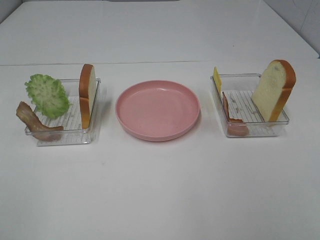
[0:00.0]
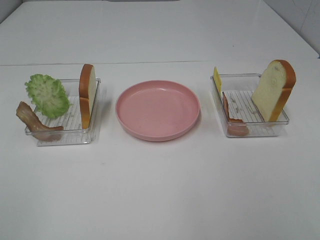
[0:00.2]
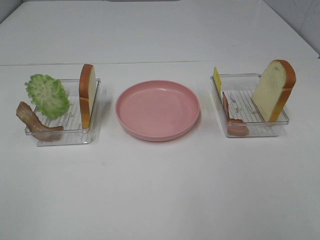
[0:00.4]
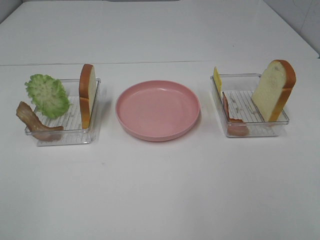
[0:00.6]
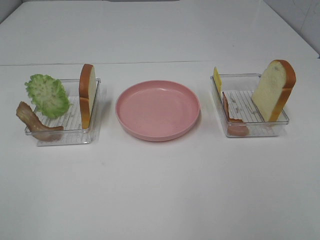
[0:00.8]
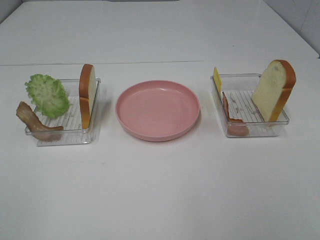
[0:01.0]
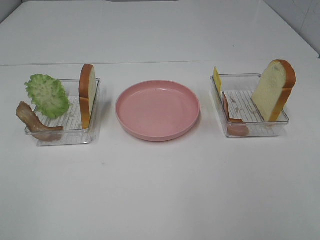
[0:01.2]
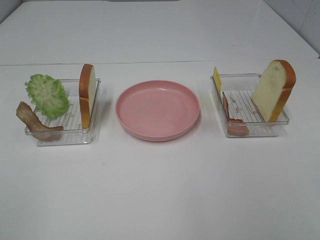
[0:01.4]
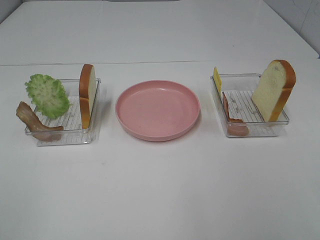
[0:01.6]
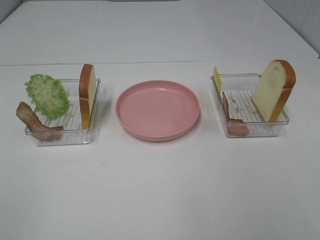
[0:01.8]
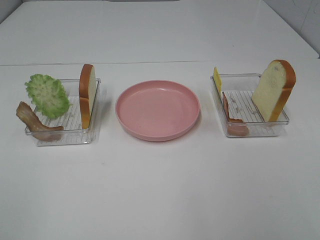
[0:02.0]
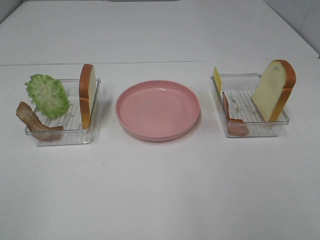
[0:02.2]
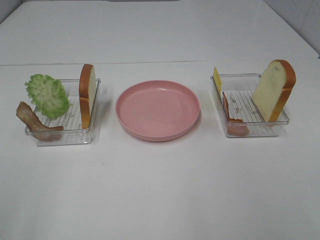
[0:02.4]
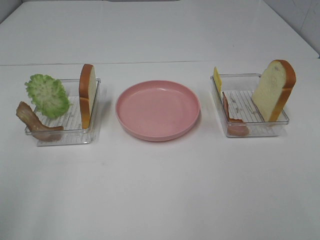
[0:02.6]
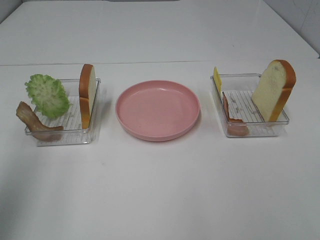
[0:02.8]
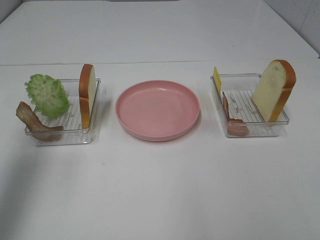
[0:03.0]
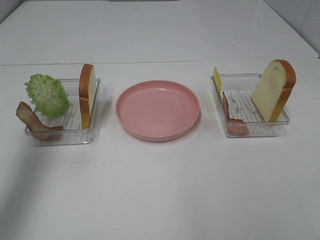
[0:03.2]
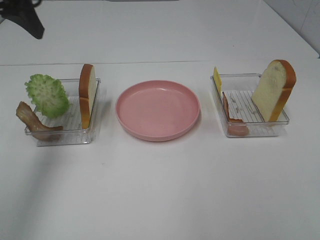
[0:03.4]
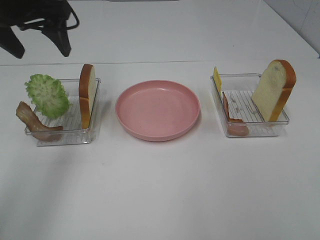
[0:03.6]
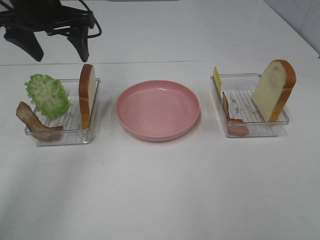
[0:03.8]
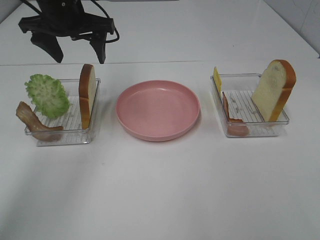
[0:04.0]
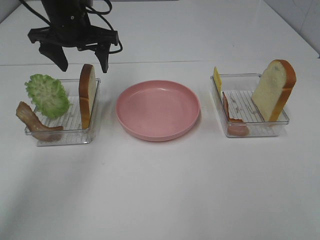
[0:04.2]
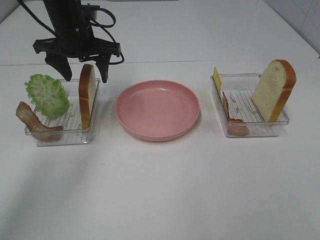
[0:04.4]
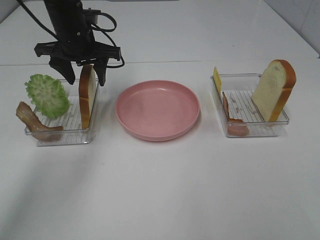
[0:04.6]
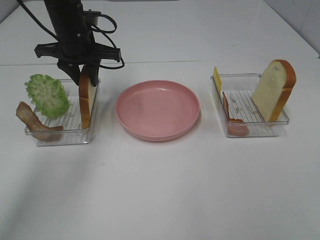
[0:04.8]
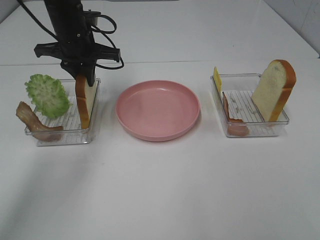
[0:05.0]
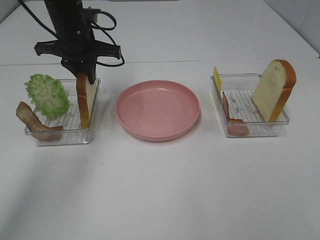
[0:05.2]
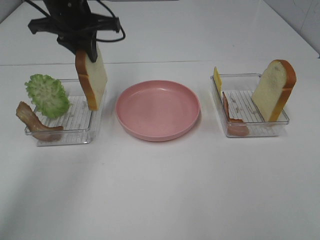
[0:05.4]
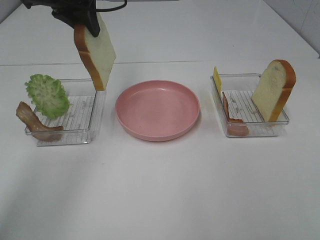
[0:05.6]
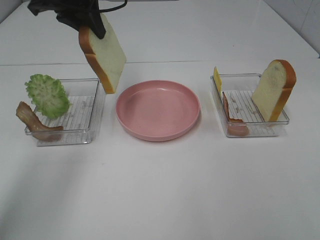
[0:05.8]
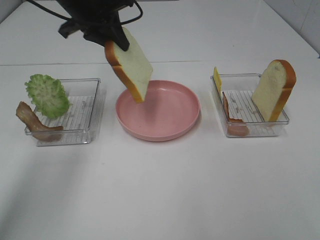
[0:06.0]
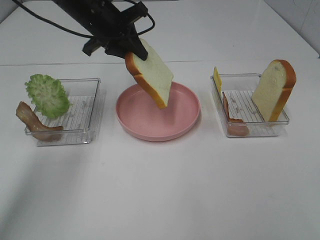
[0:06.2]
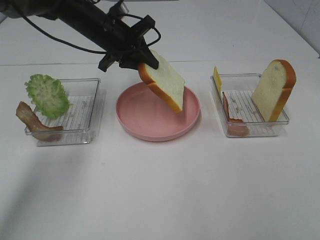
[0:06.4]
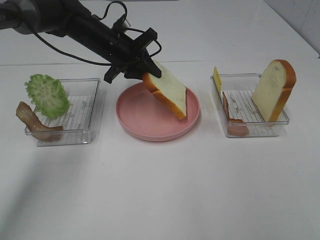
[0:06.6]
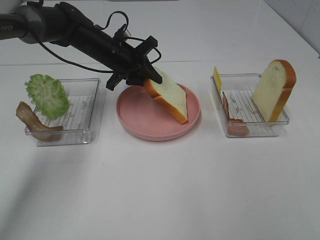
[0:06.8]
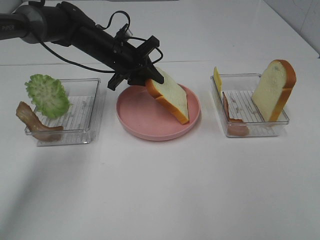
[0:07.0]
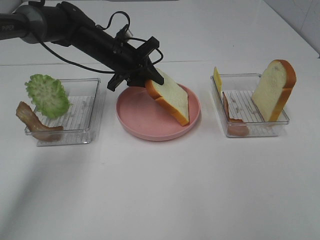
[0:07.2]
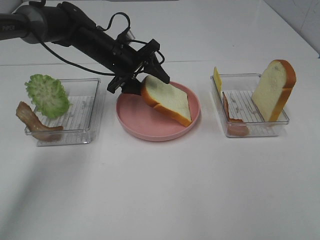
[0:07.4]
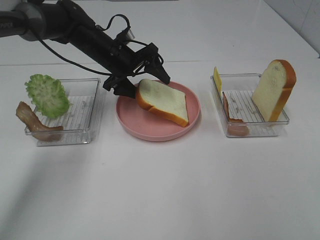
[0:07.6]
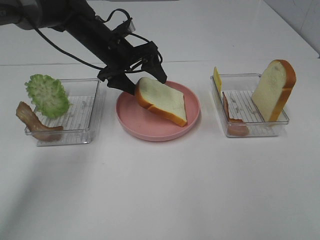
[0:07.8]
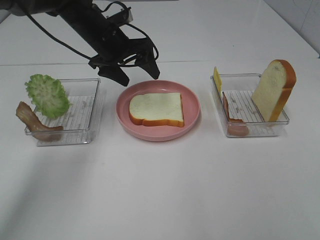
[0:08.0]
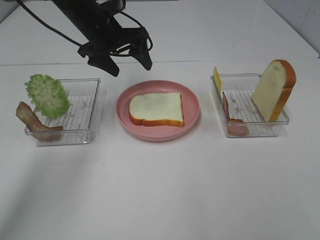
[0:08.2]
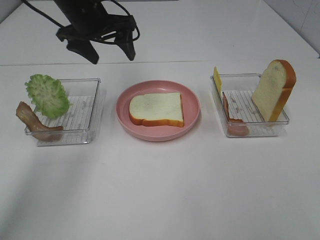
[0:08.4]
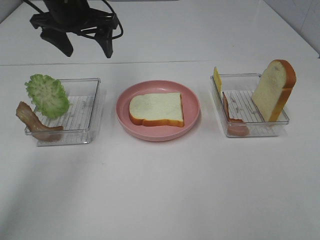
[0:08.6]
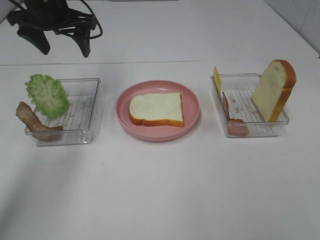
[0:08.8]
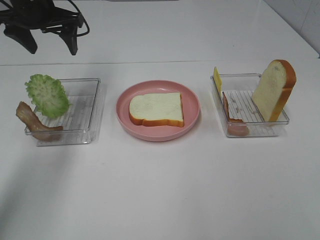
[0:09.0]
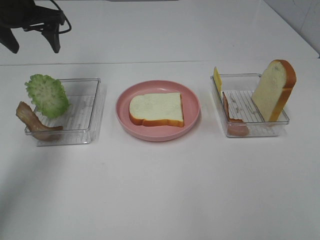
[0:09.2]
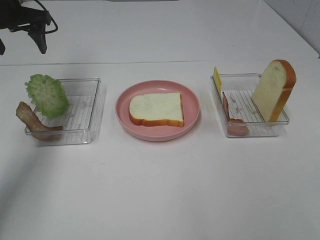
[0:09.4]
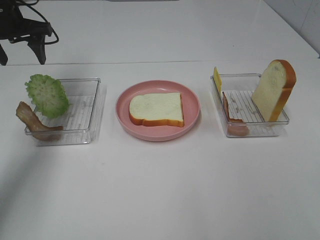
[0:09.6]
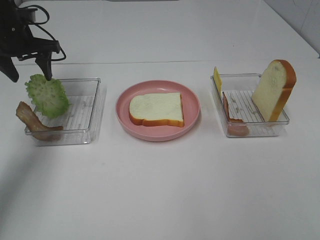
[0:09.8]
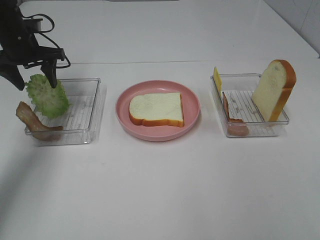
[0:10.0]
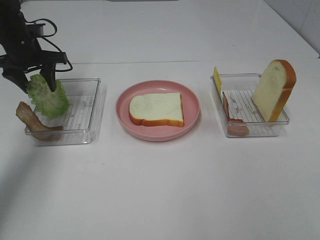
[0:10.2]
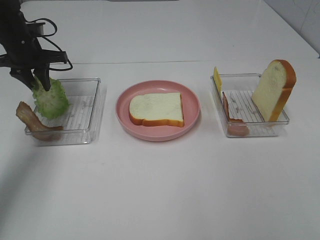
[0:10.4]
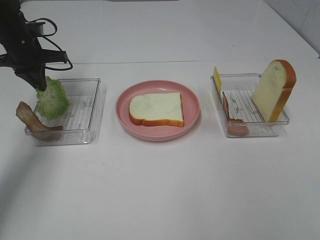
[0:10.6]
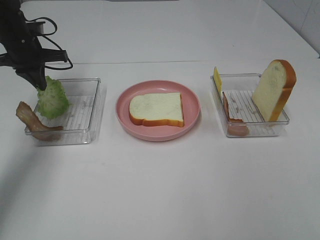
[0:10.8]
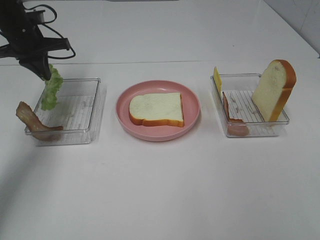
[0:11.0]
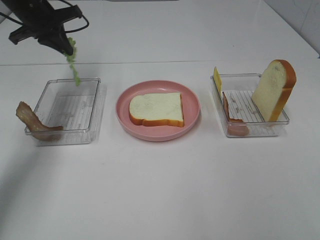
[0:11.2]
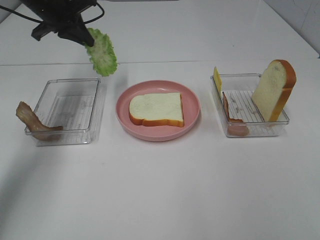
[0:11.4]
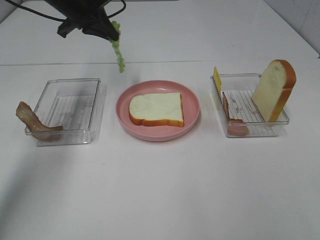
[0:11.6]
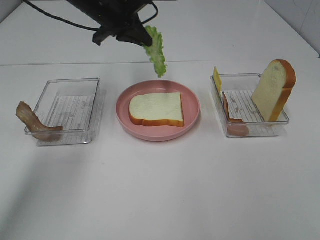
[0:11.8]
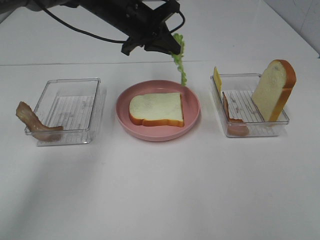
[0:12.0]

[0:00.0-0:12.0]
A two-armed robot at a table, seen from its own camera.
Task of the whole recording: Make sandwiches.
Step, 0:00.0 to 0:05.2: Left hand:grab the bread slice.
Step, 0:05.4 to 0:08.0: Left hand:place the bread slice on the plate.
Step, 0:08.2 to 0:10.6: Left hand:grab the lettuce slice.
0:00.0 to 0:01.6: The two grippers keep their place.
0:01.6 to 0:03.0: The left gripper moves forward, approximately 25 cm.
0:03.0 to 0:04.4: The left gripper travels forward, to the right and downward by about 30 cm.
0:04.4 to 0:06.0: The left gripper moves upward, some 5 cm, and closes its fingers.
0:06.0 to 0:07.6: The left gripper heads downward, covering about 10 cm, and opens its fingers.
0:07.6 to 0:09.0: The left gripper is displaced to the left and upward by some 15 cm.
0:09.0 to 0:10.4: The left gripper shifts approximately 10 cm downward, and closes its fingers.
0:10.4 to 0:12.0: The left gripper shifts some 20 cm to the right, and closes its fingers.

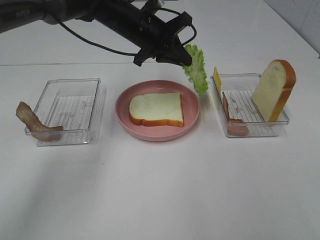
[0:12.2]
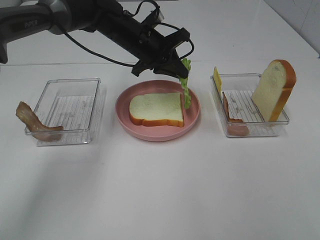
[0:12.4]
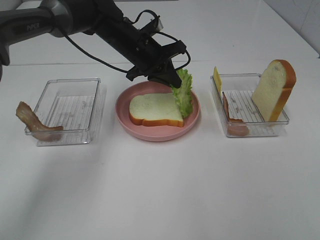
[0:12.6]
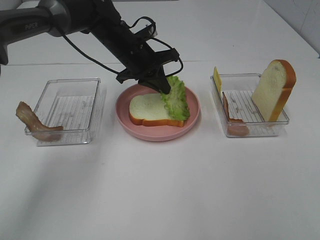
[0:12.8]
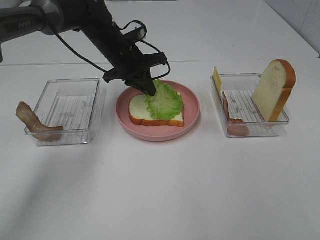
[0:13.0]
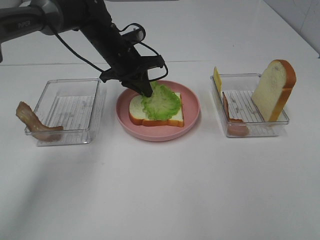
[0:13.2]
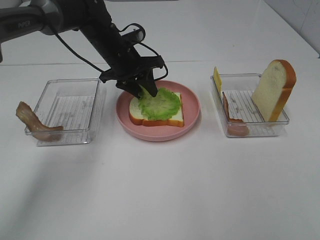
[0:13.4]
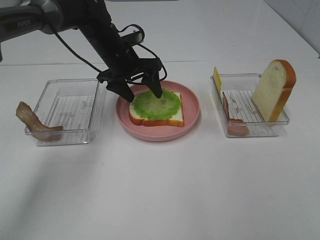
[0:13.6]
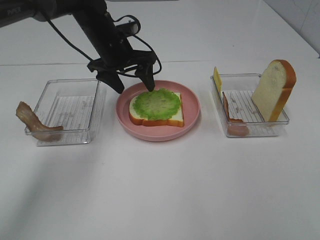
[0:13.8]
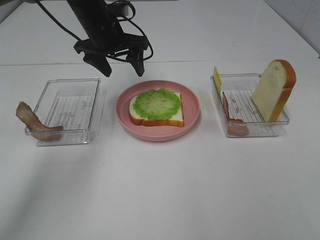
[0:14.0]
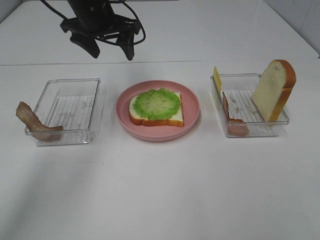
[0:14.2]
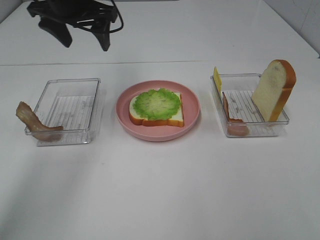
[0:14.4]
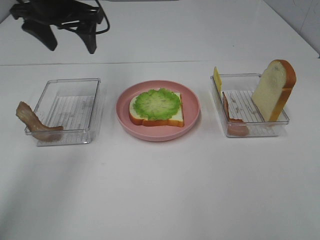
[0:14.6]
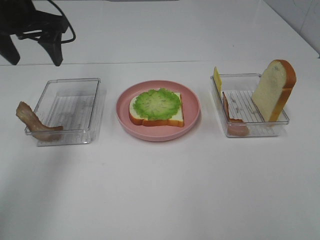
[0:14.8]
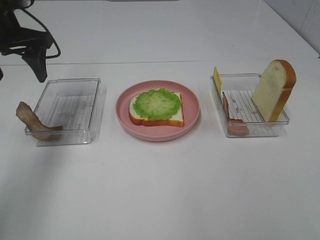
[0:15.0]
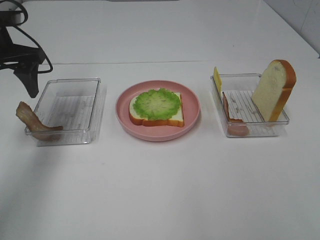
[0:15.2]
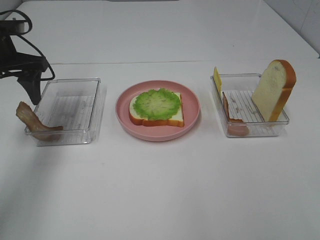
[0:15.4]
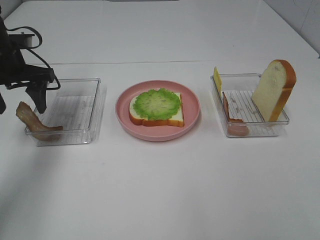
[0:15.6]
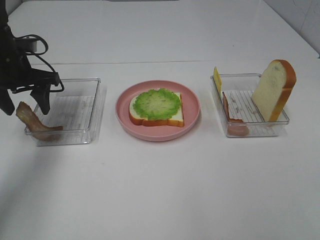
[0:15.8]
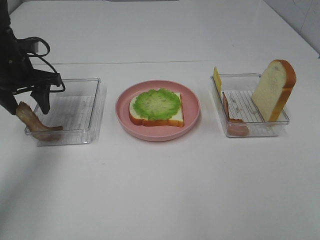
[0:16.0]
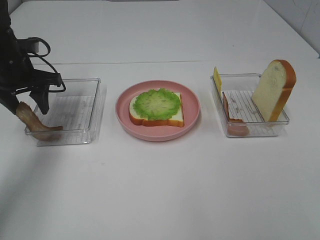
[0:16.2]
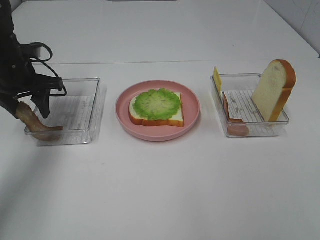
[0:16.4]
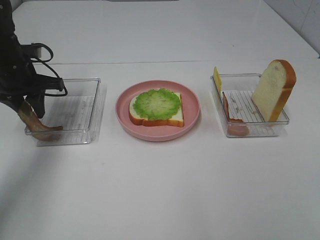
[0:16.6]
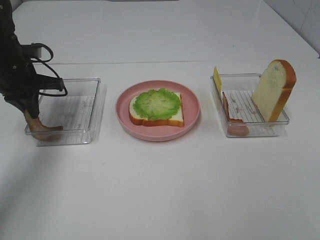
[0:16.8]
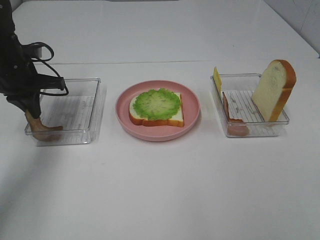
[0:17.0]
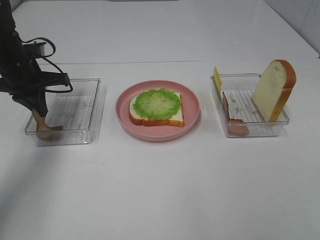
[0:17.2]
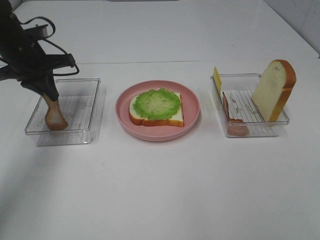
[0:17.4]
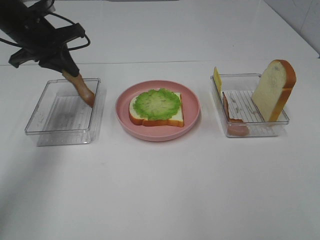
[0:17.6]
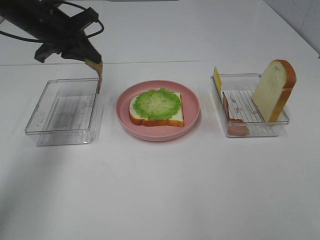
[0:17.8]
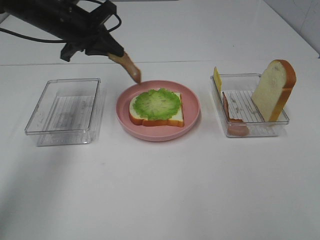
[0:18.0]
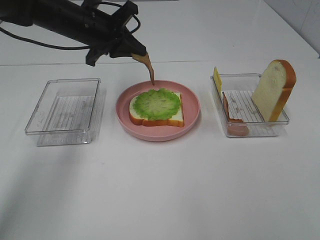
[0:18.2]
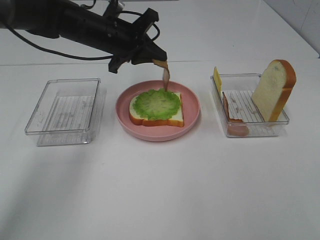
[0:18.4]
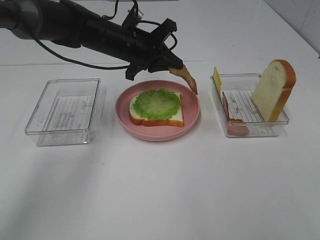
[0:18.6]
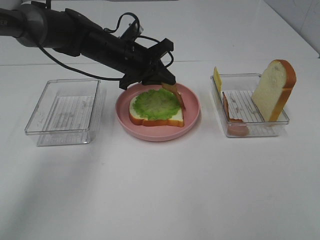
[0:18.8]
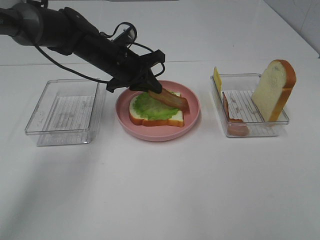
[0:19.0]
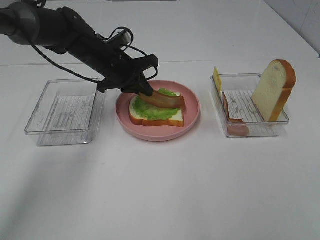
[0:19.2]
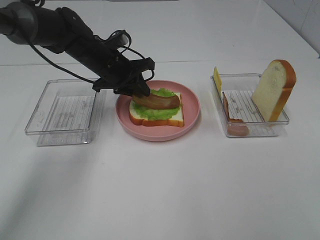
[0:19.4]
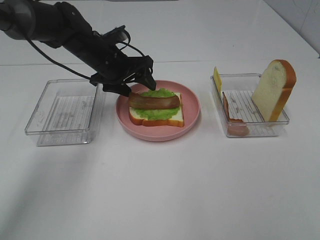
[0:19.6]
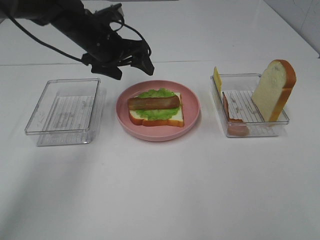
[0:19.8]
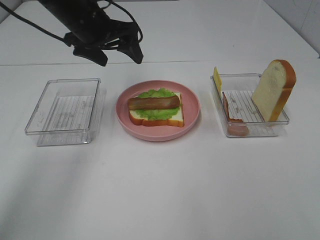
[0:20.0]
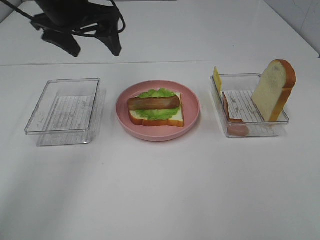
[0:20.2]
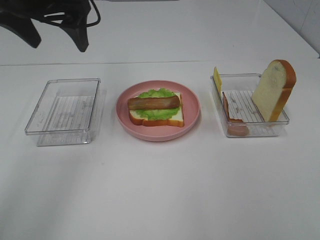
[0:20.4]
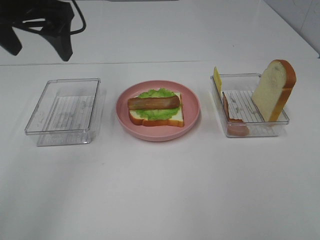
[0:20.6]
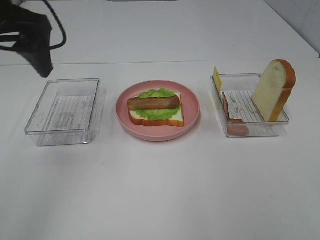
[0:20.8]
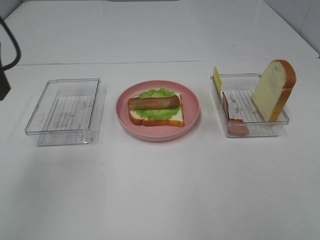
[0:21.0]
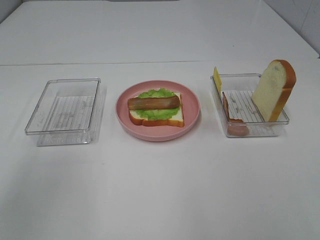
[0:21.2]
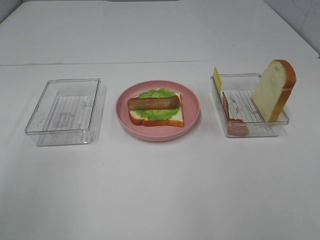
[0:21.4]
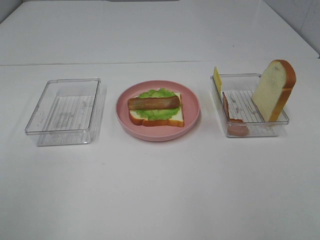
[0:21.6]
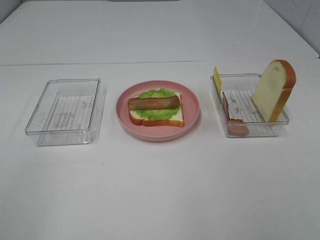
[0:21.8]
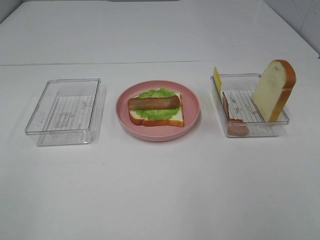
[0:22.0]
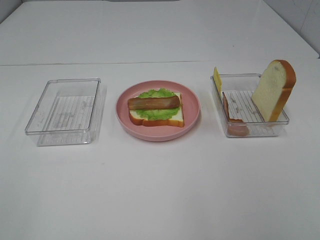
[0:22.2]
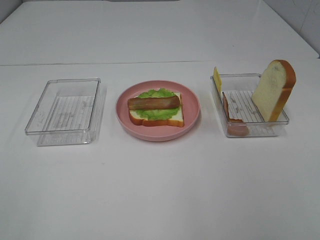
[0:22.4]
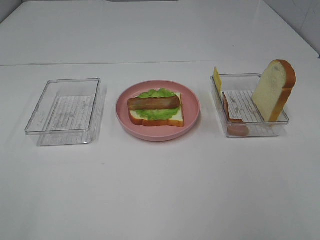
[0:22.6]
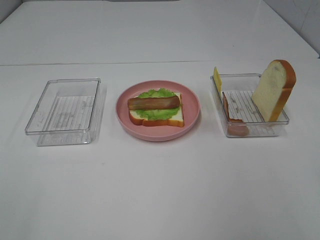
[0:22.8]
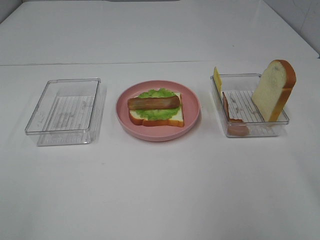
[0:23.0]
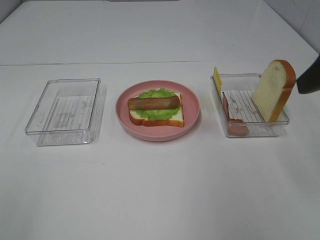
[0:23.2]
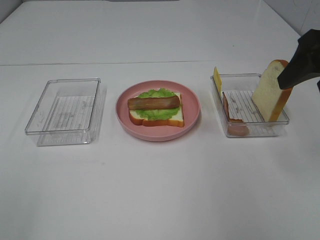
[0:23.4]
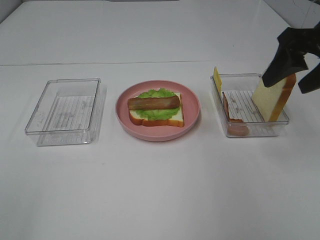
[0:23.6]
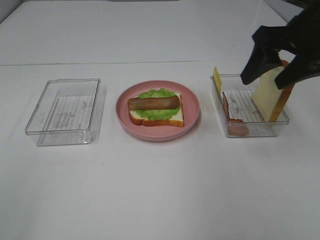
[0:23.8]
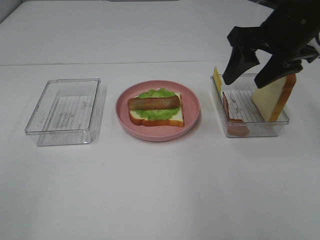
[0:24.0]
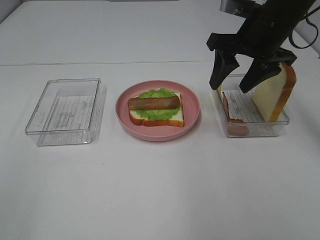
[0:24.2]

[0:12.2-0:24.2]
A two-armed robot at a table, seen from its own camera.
Task of the whole recording: Make sandwiches.
Step, 0:13.8 to 0:17.2: Left hand:grab the bacon.
Step, 0:17.4 to 0:19.8: Left hand:place bacon on lettuce slice.
0:12.2 to 0:13.8: The left gripper travels to the left by approximately 5 cm, and opens its fingers.
0:13.8 to 0:15.2: The left gripper shifts roughly 20 cm to the left and backward.
0:15.2 to 0:16.6: The left gripper travels downward by some 10 cm, and closes its fingers.
0:16.6 to 0:18.2: The left gripper shifts some 15 cm to the right.
0:18.2 to 0:19.8: The left gripper opens up.
0:19.8 to 0:21.2: The left gripper is displaced backward, upward and to the left by about 35 cm.
0:22.6 to 0:24.2: The right gripper shifts about 30 cm forward.
